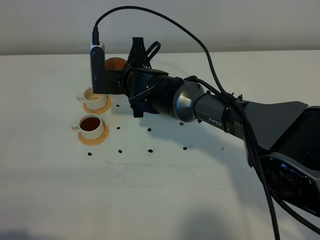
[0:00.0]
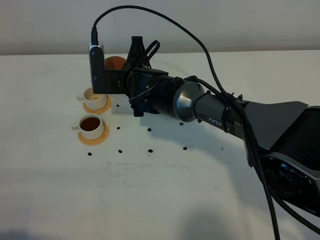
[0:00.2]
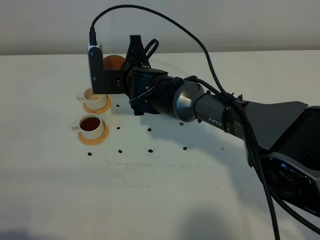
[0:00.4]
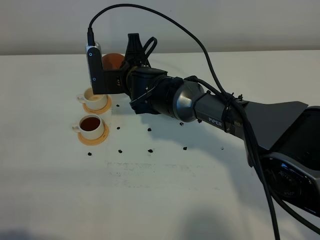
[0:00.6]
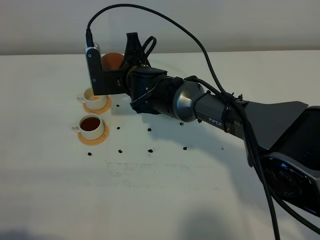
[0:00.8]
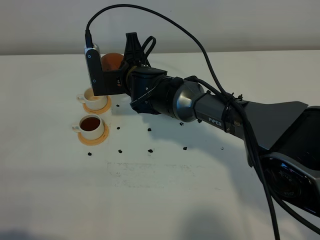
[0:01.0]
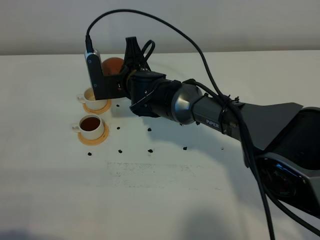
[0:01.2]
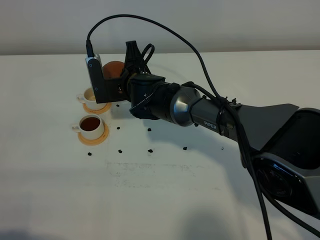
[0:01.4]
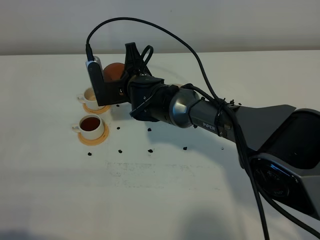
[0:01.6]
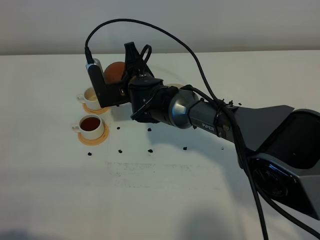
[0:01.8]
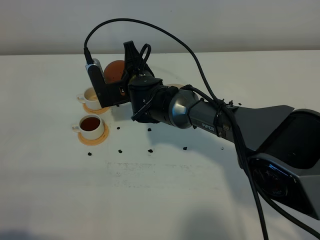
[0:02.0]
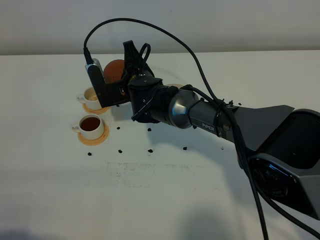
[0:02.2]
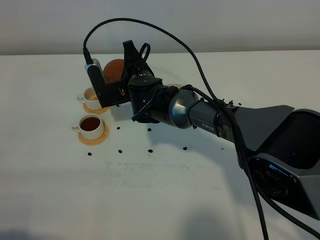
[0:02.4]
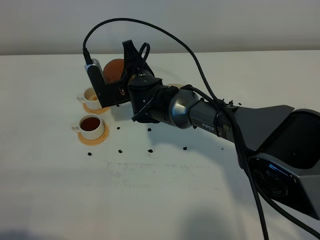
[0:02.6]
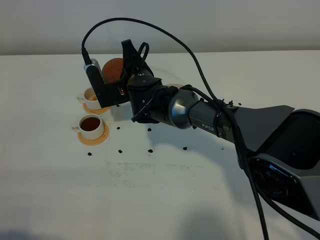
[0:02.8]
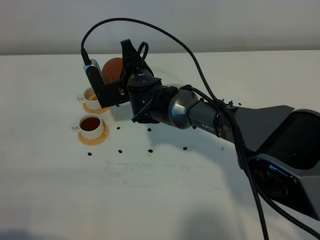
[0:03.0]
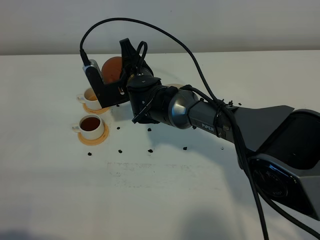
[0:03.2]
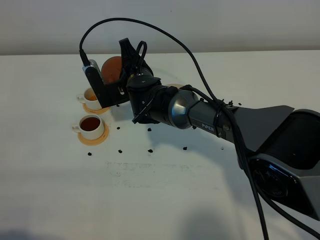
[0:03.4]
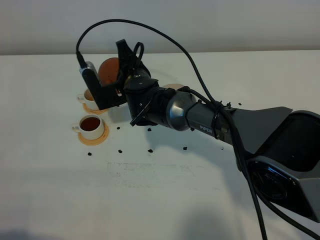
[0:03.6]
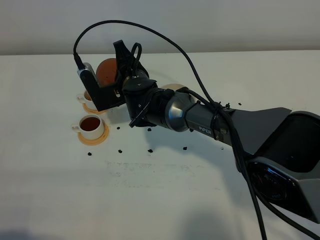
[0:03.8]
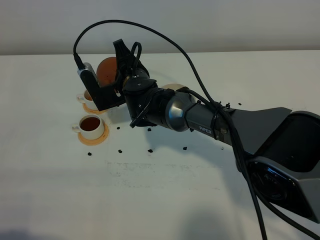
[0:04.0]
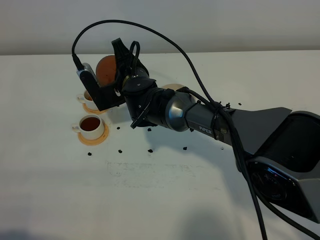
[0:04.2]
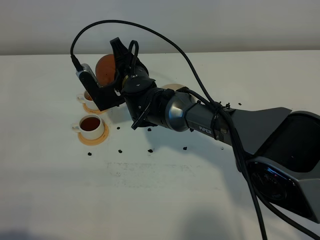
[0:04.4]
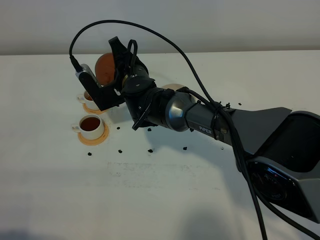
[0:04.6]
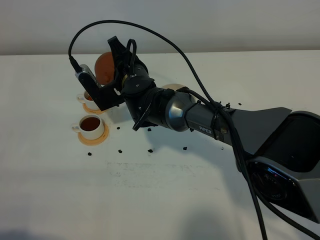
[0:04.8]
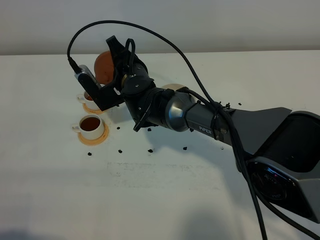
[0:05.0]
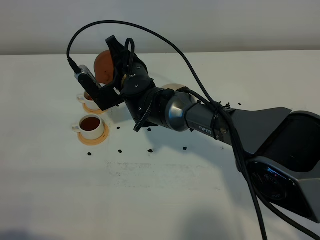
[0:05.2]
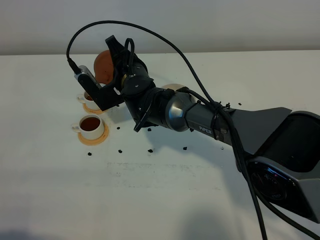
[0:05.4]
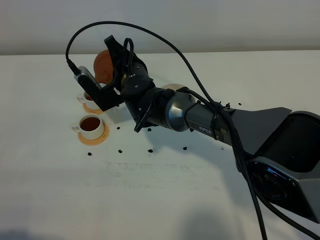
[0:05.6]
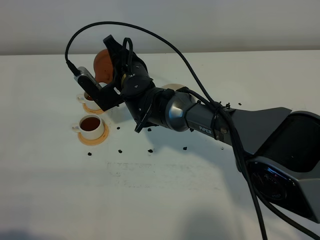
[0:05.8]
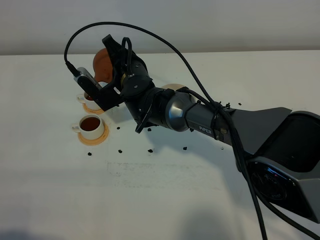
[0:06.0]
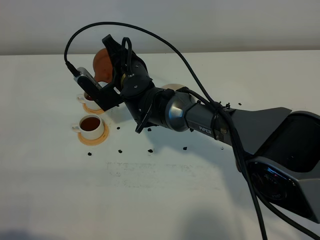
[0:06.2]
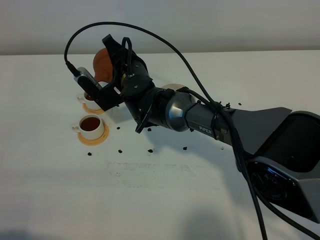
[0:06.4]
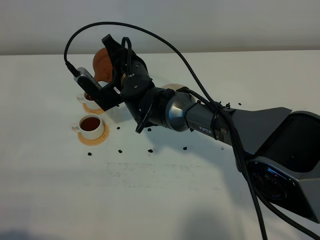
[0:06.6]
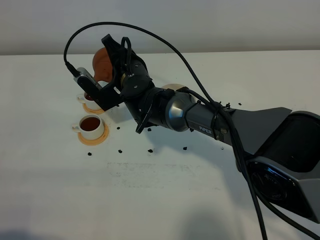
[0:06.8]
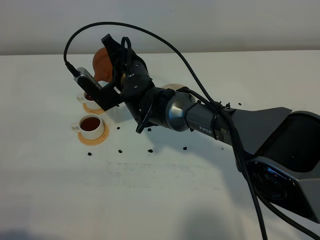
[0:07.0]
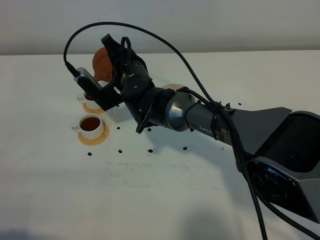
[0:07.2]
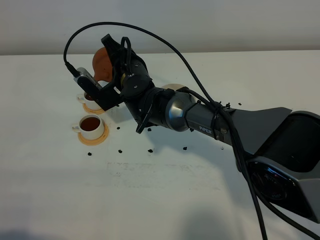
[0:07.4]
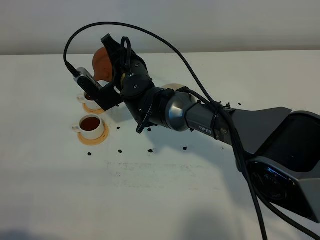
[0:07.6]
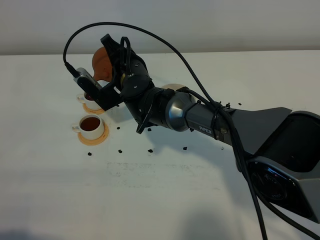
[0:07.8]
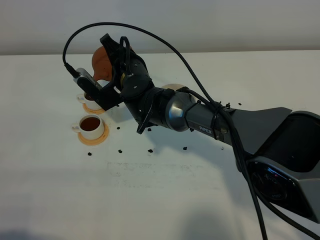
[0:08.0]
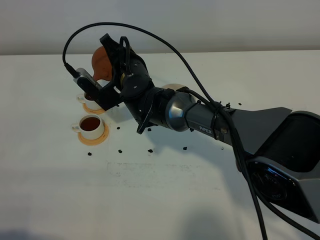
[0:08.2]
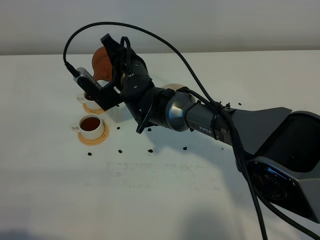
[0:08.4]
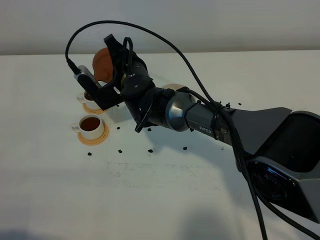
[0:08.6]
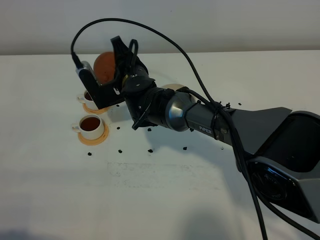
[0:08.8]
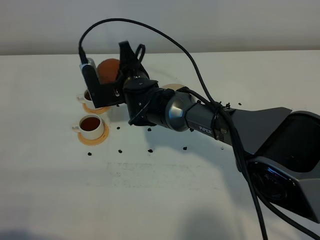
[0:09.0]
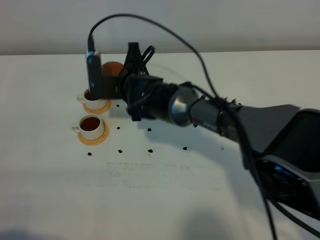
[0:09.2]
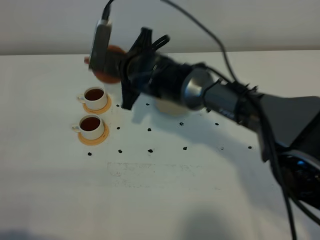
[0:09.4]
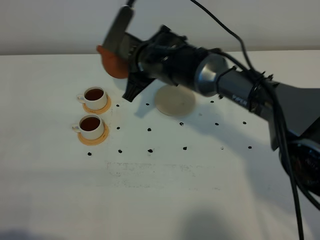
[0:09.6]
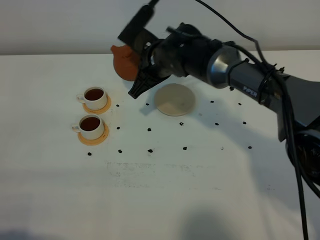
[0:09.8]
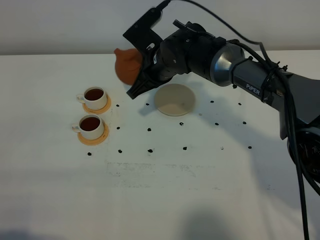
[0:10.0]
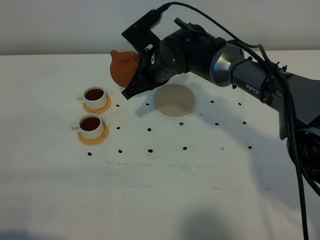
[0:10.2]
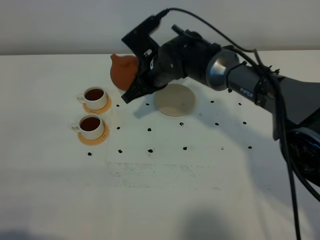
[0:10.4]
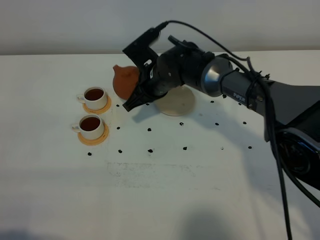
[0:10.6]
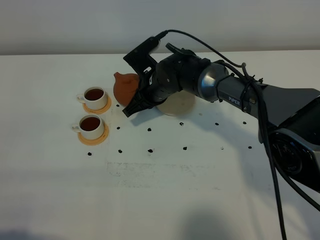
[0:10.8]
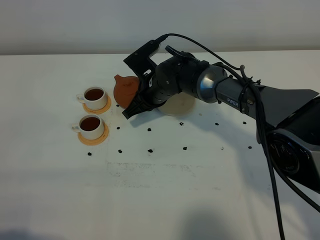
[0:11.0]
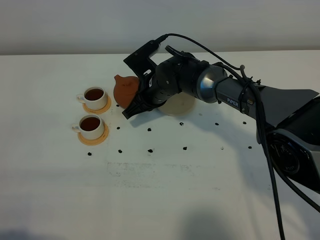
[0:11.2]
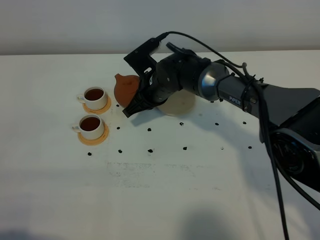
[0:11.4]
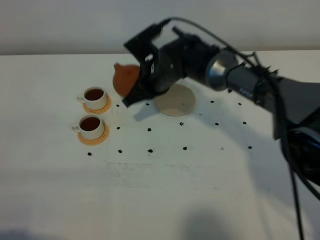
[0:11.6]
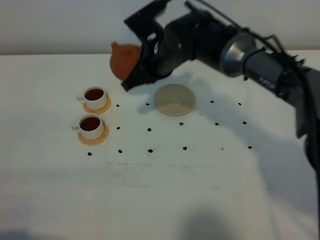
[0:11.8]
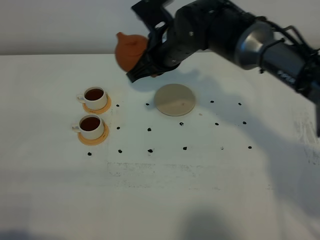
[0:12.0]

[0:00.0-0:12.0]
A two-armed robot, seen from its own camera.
Task of the whole recording: grasp the brown teapot and pour the tea into the two white teacups one by one, put the brown teapot back in its original place.
Step, 0:00.0 to 0:09.4: Pour tea into the teacup with the right gripper.
0:00.0 to 0:01.6: The grippers make only small movements.
0:01.6 to 0:04.4: The grippers move only a little.
0:04.4 to 0:06.0: The grippers make only small movements.
0:06.0 to 0:07.6: Neither gripper changes place.
0:09.0 to 0:10.4: The right gripper moves about 5 cm.
0:10.4 to 0:12.0: The right gripper shifts roughly 10 cm upward.

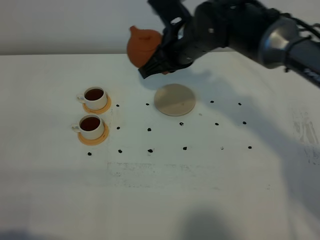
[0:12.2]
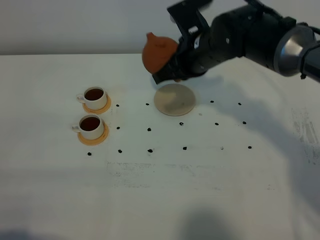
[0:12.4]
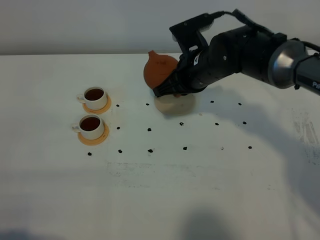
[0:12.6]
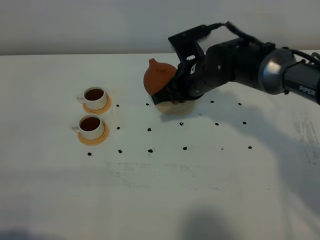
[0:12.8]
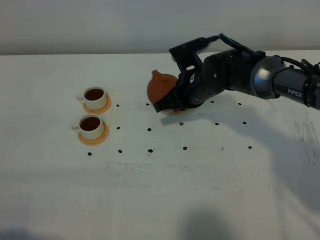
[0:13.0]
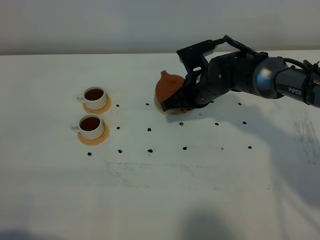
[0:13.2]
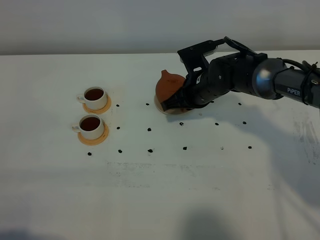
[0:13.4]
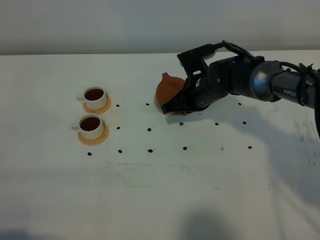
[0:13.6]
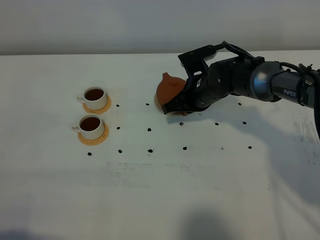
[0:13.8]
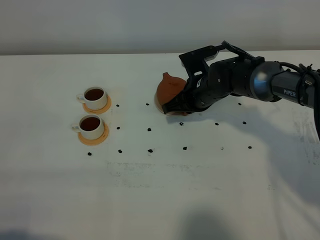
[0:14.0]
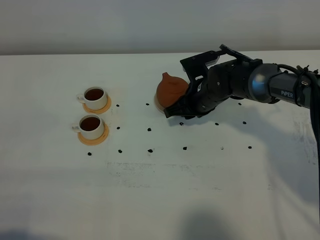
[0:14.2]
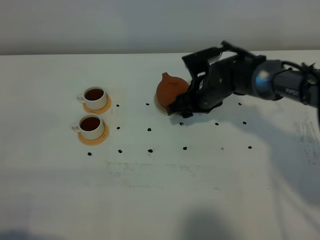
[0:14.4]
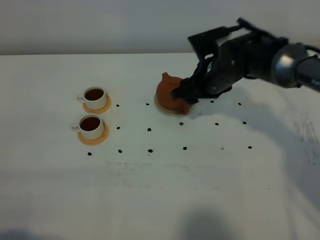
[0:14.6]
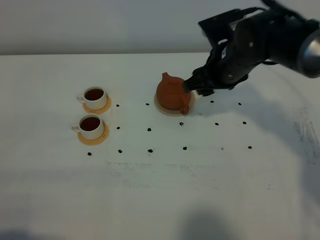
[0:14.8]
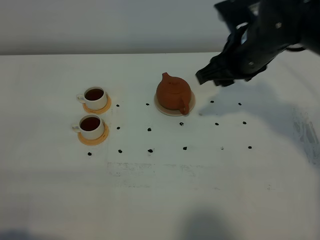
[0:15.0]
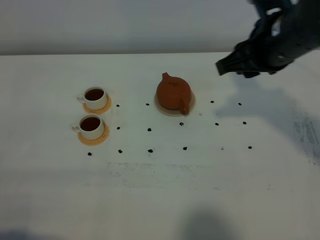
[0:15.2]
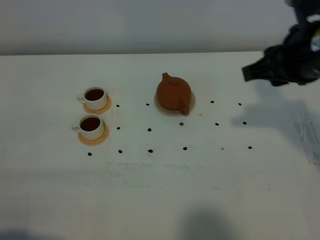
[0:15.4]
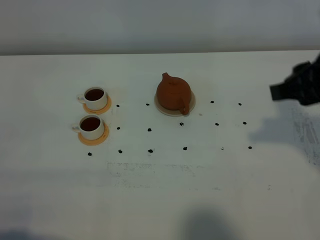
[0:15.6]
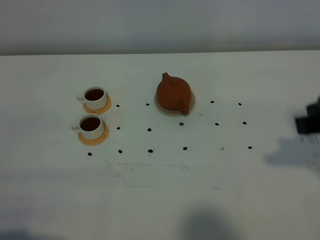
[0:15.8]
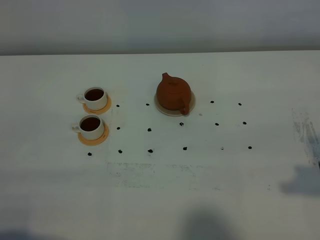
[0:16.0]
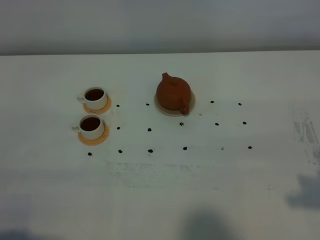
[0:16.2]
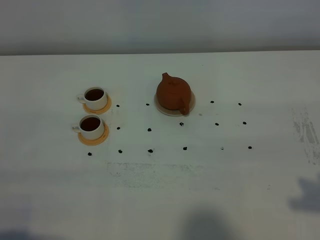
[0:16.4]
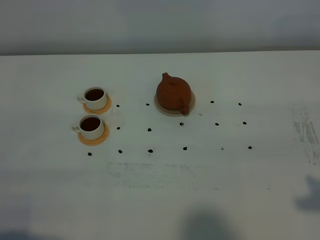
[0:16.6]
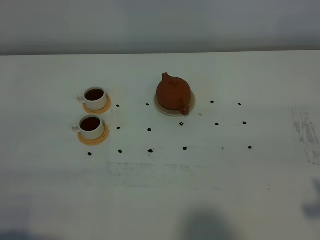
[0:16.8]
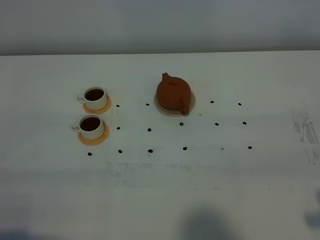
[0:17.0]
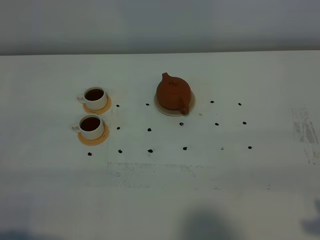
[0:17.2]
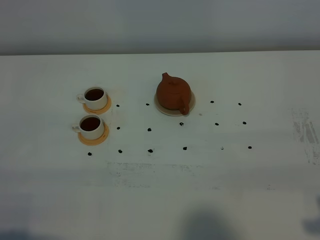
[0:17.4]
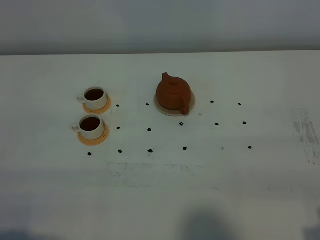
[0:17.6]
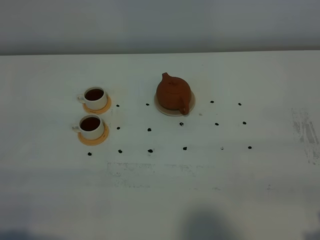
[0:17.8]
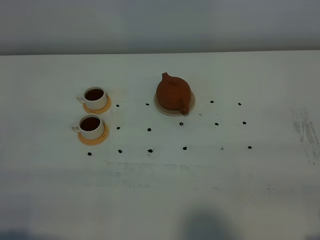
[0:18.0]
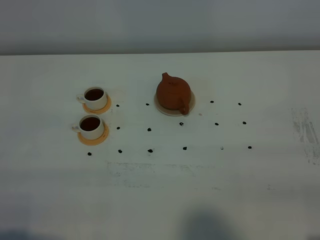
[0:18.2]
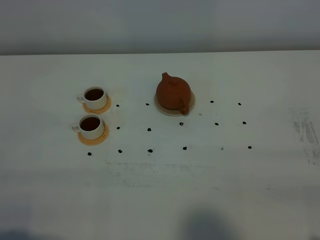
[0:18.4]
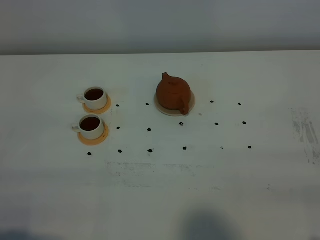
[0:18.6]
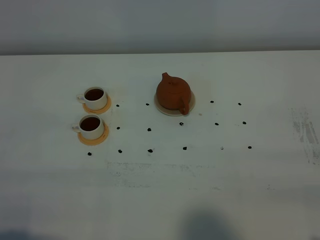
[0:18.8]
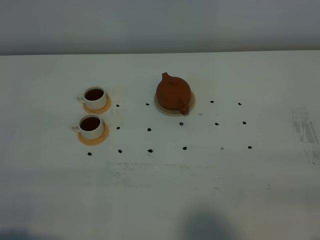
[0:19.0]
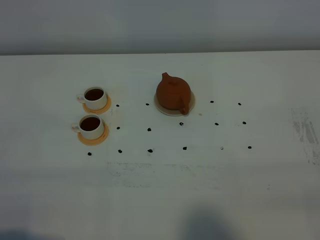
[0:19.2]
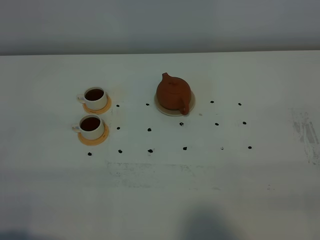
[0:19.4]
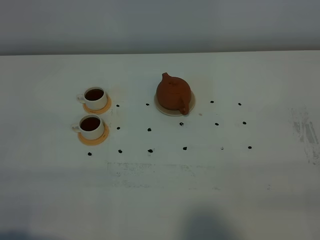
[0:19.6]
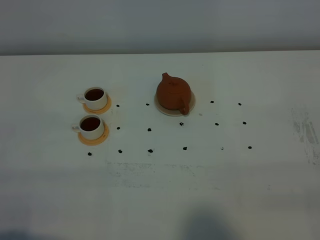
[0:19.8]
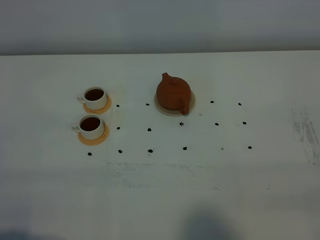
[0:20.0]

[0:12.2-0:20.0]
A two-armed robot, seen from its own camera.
Task of the whole recording: grasp the brown teapot and pour the tea into the two white teacups one by one, put the brown teapot back in its original place.
0:12.2 to 0:13.8: The right gripper travels downward by about 15 cm.
0:13.8 to 0:15.4: The right gripper goes some 30 cm upward, backward and to the right, and opens its fingers.
0:15.4 to 0:16.8: The right gripper travels backward and to the right by approximately 20 cm.
